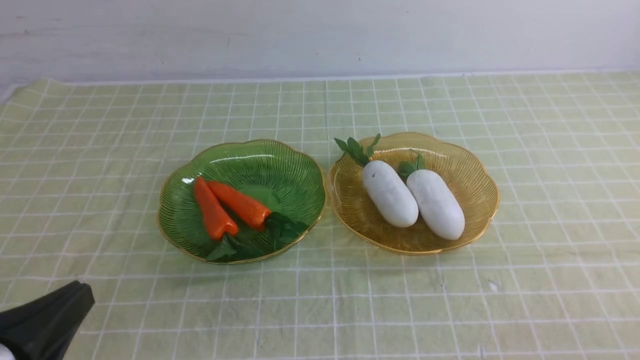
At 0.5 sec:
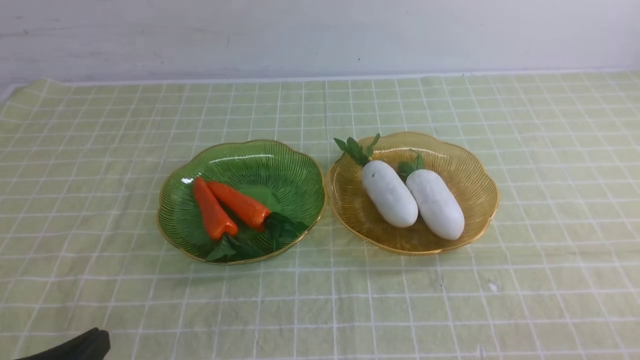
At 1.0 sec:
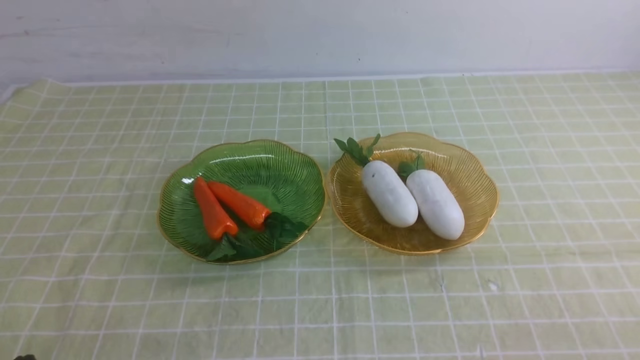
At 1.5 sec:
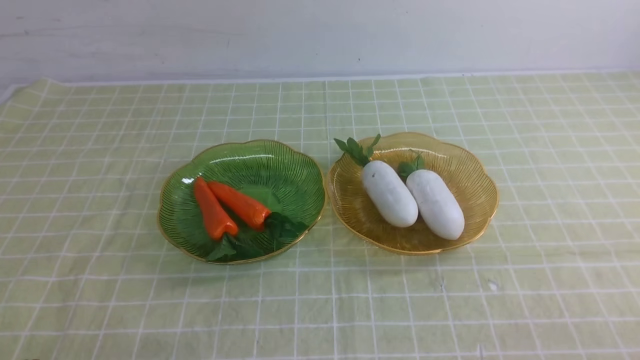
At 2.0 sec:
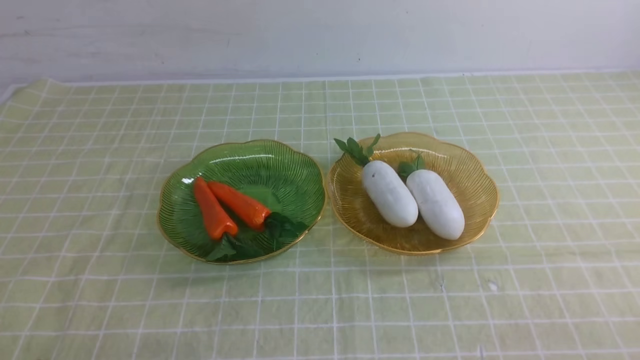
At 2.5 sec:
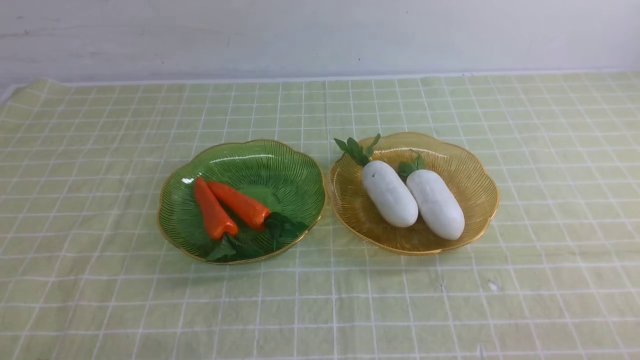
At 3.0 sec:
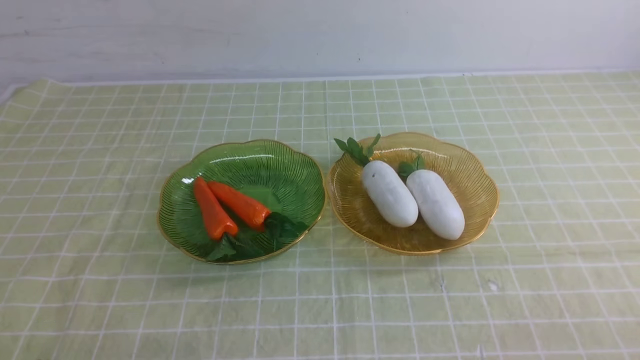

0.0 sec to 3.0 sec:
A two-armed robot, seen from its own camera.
0.0 sec to 1.5 sec: The left gripper goes about 10 cm downward.
1.5 sec to 3.0 sec: The two grippers keep their place.
